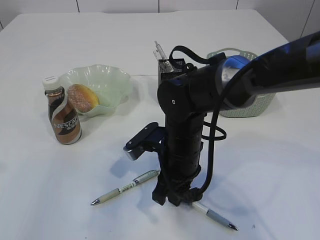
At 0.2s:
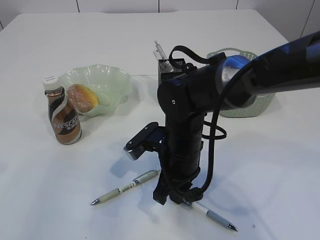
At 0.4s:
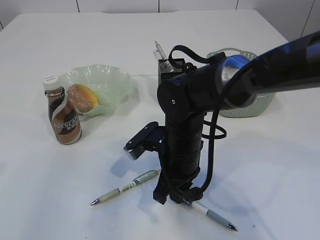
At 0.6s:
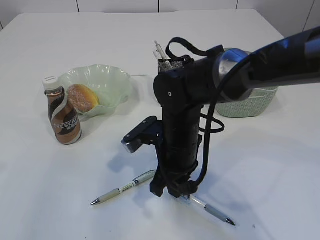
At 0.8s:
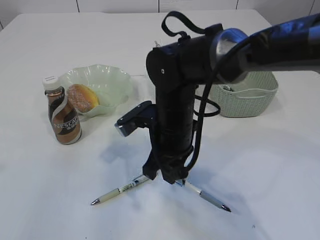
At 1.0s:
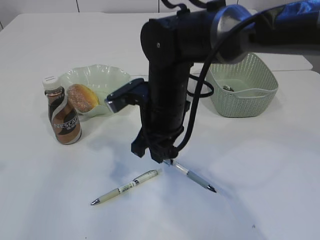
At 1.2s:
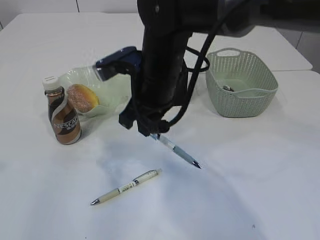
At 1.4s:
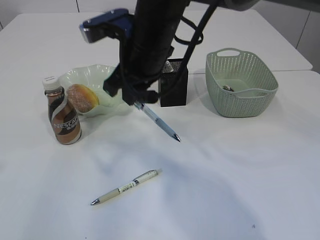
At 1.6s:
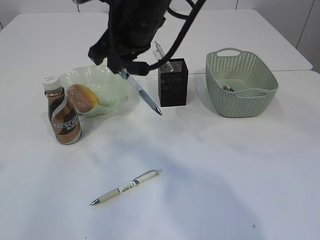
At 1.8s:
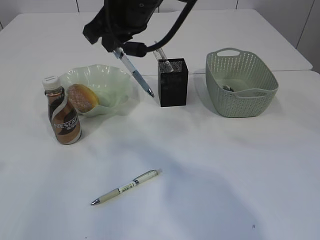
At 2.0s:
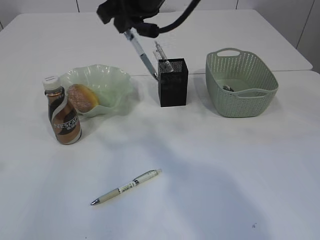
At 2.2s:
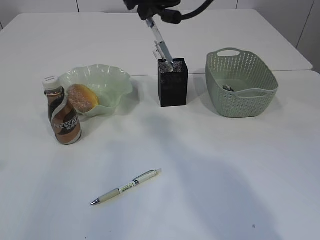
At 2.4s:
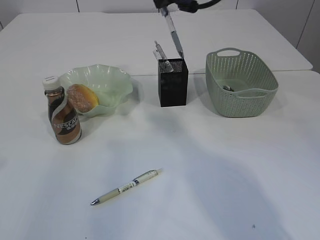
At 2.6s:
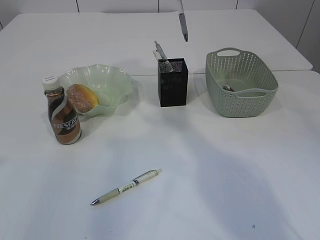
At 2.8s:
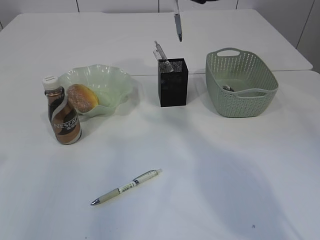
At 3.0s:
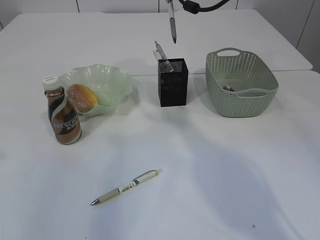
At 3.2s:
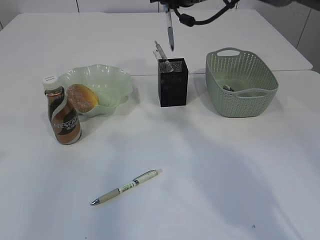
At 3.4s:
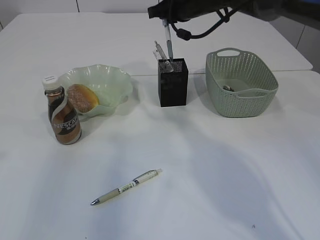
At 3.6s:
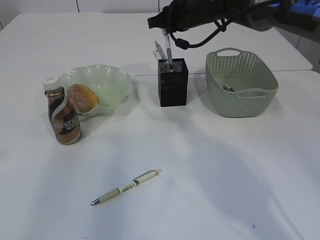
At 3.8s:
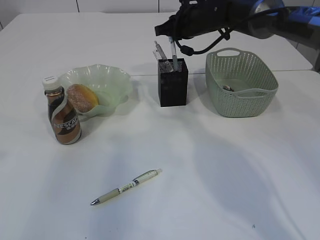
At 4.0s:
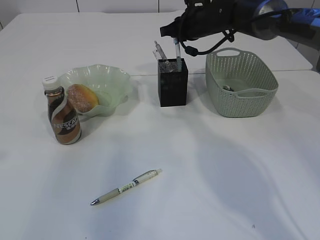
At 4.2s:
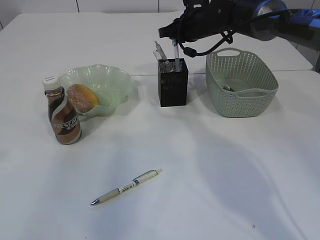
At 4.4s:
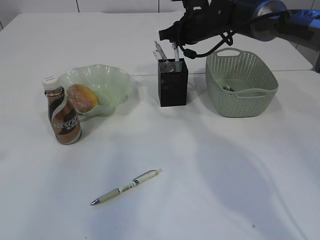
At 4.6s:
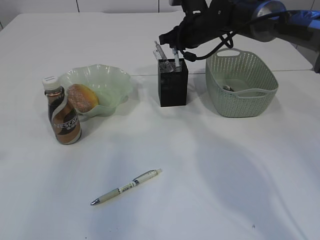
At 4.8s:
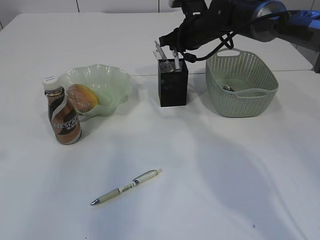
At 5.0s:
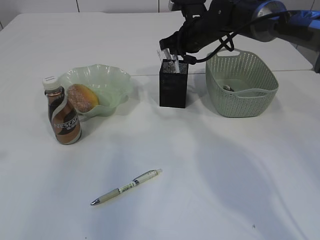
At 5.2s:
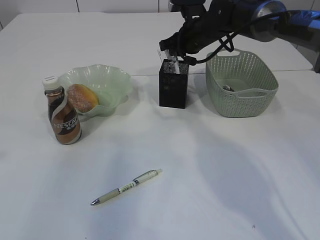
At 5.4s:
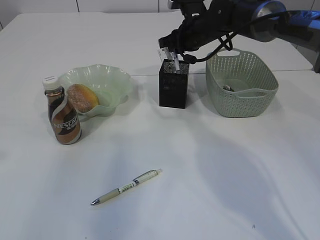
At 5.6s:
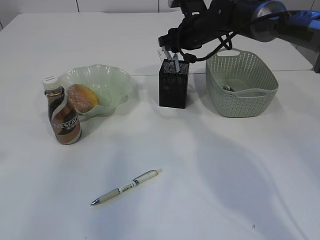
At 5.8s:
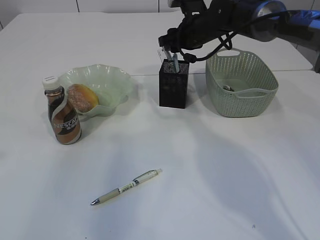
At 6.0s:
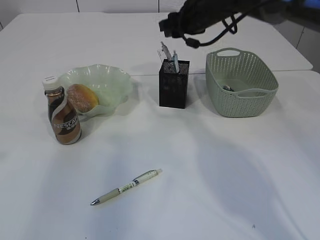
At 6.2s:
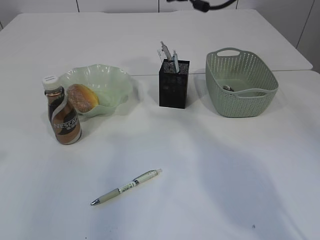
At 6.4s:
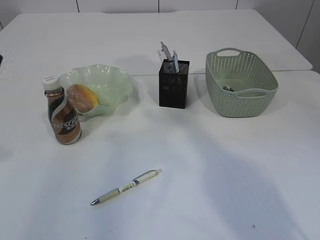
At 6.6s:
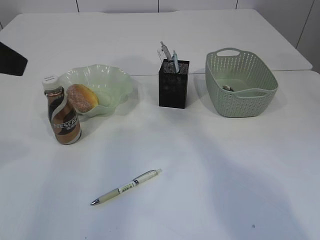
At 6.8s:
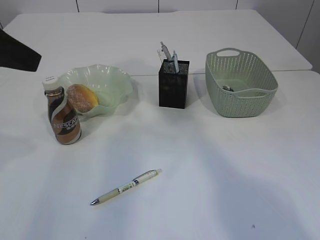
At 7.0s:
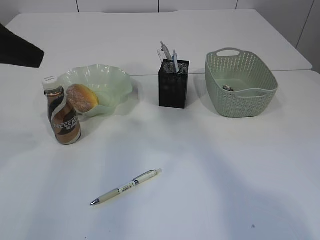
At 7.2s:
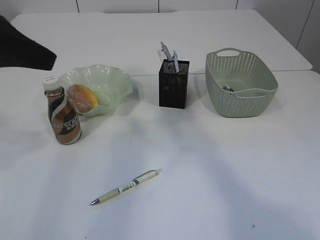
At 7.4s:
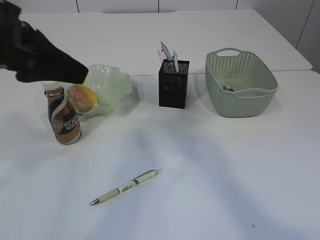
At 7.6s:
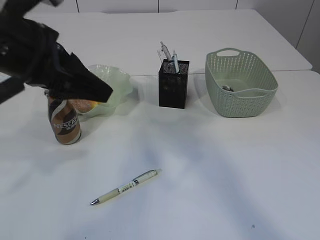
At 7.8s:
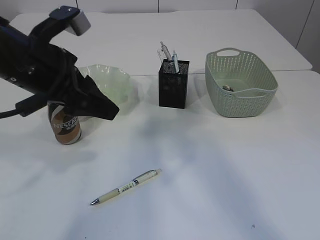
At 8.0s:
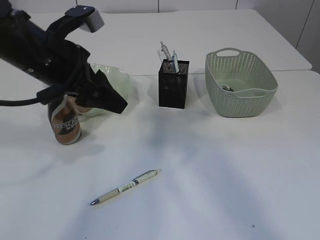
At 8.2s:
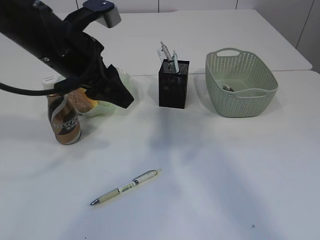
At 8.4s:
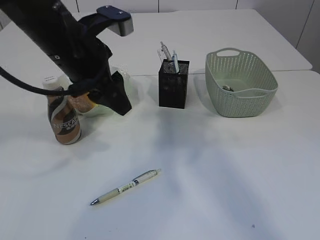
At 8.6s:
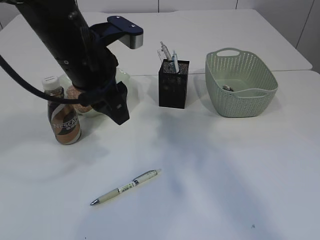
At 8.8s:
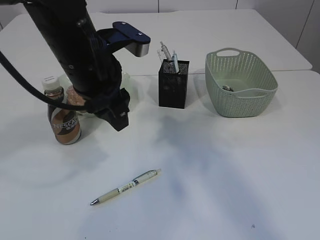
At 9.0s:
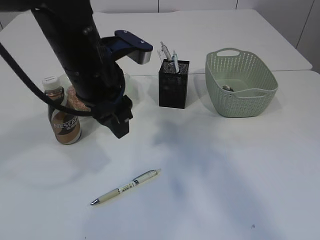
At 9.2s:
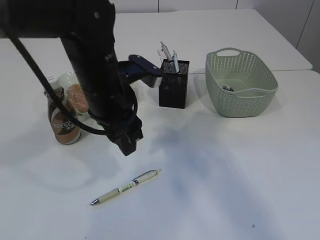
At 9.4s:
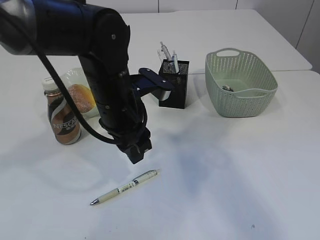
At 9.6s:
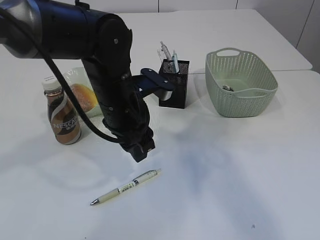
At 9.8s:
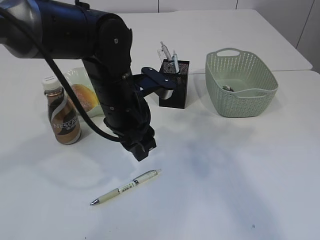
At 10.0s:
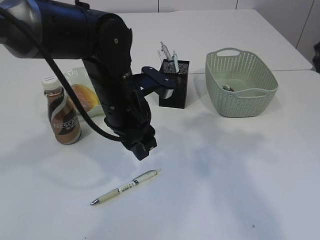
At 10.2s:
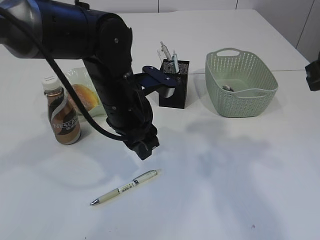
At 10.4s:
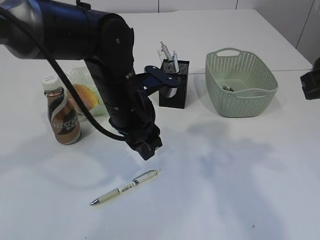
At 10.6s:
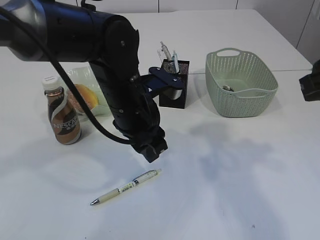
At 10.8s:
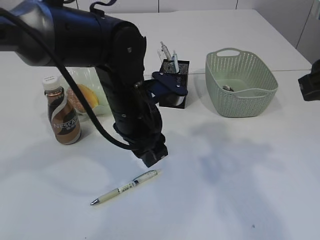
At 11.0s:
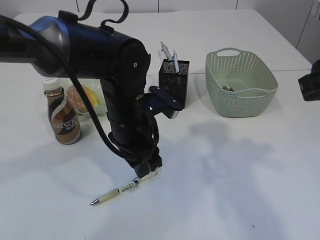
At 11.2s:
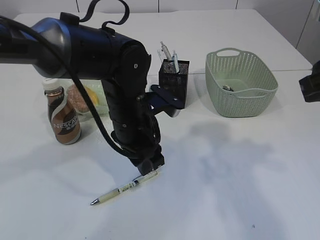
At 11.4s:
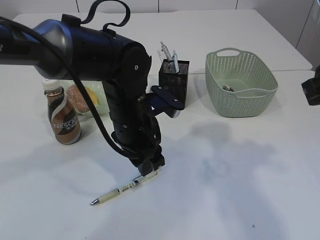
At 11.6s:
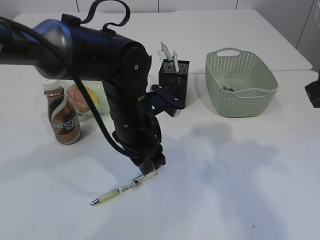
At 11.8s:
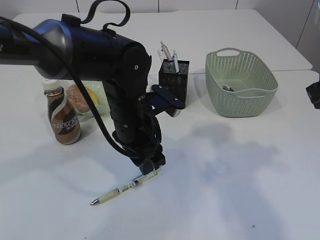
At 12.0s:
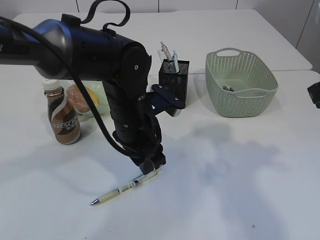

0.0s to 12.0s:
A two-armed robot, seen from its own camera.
Step, 1.2s to 5.8s: Place the pen into the pen holder.
0.0s to 1.6s: The right gripper goes some 20 cm upward.
1.6s to 3.0s: The right gripper shifts about 15 cm forward and to the right.
3.0s to 4.4s: The right gripper moves downward, about 10 cm.
4.4s to 6.0s: The right gripper opens up.
6.0s to 7.6s: The left gripper moves to the right, downward and forward, about 15 cm, while the right gripper goes approximately 40 cm upward and backward.
7.6s to 9.0s: The right gripper ends up about 5 cm from where it was. The left gripper travels to the right by approximately 10 cm.
9.0s to 10.4s: The left gripper heads downward, covering approximately 5 cm, while the right gripper travels downward by roughly 15 cm.
10.4s to 12.0s: The grippers make only small movements.

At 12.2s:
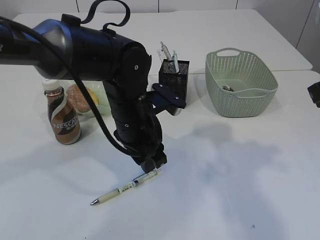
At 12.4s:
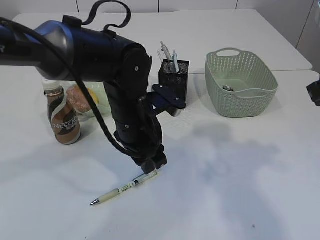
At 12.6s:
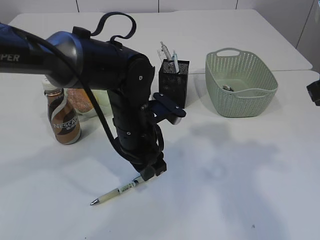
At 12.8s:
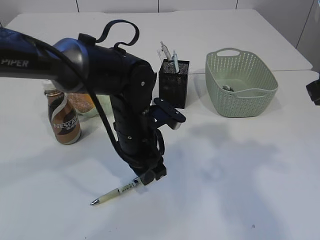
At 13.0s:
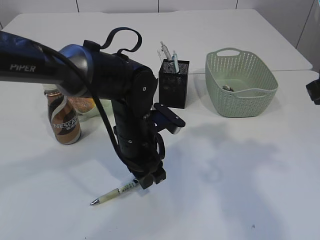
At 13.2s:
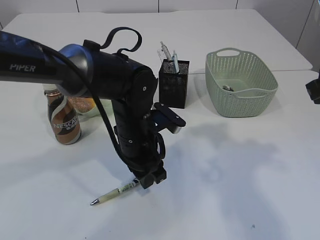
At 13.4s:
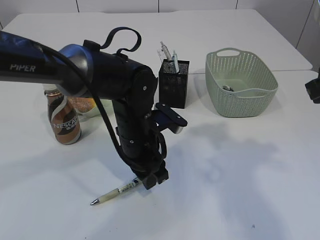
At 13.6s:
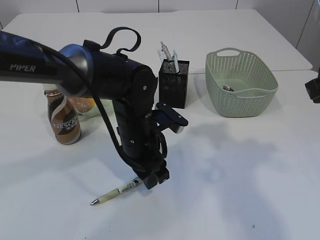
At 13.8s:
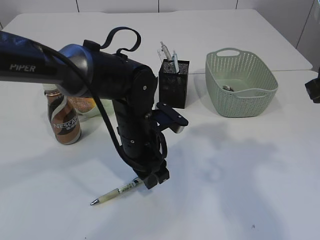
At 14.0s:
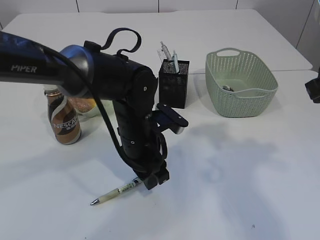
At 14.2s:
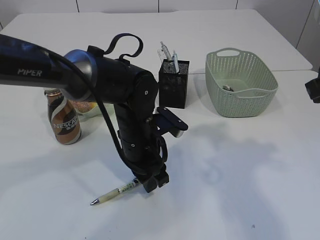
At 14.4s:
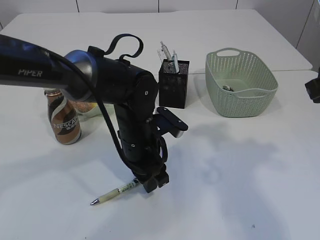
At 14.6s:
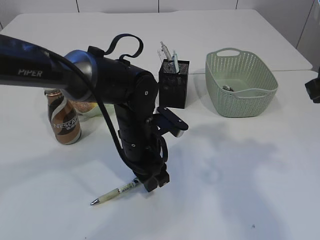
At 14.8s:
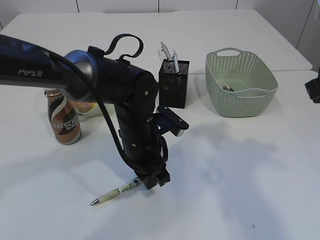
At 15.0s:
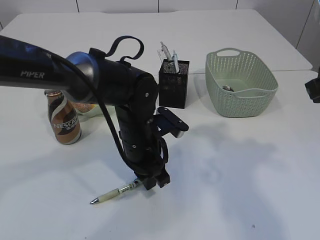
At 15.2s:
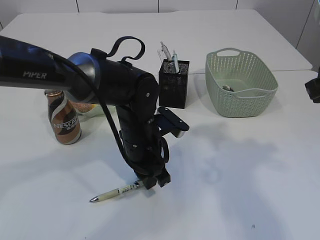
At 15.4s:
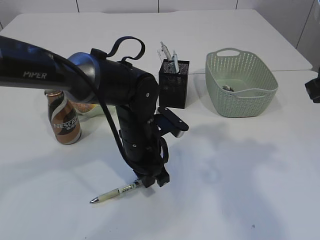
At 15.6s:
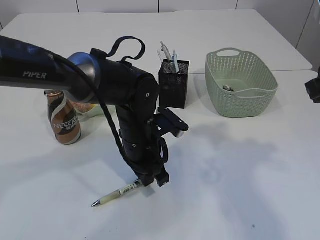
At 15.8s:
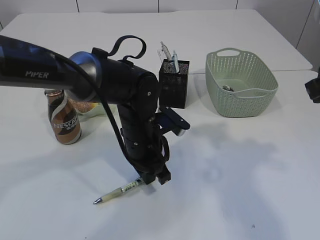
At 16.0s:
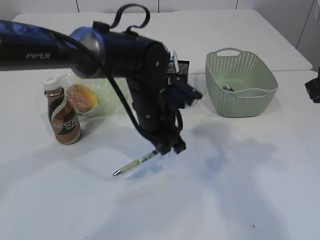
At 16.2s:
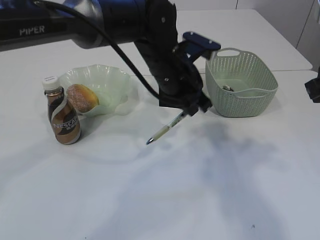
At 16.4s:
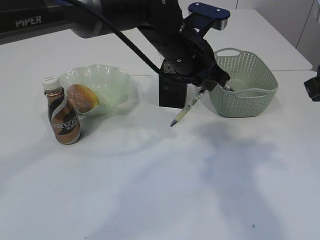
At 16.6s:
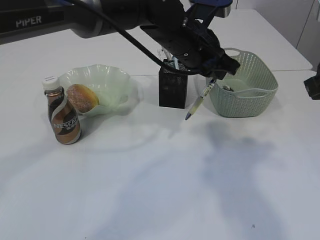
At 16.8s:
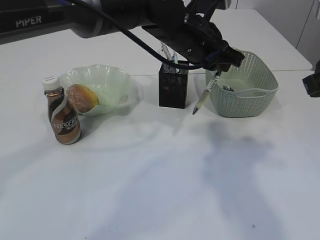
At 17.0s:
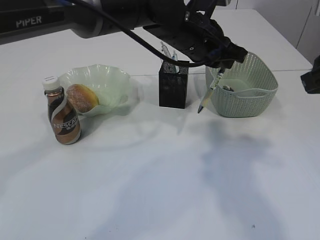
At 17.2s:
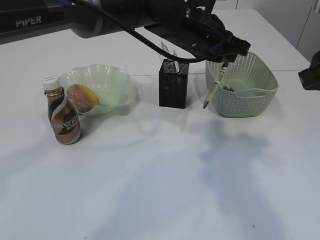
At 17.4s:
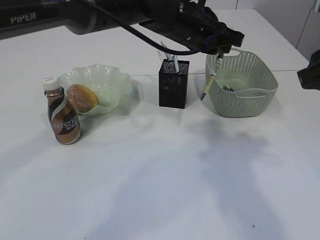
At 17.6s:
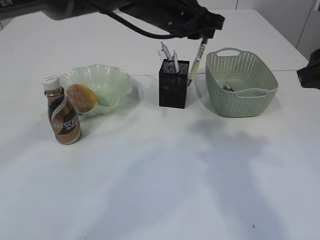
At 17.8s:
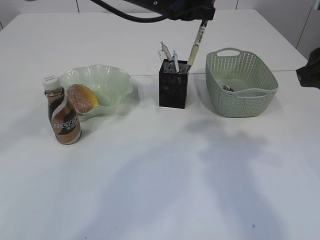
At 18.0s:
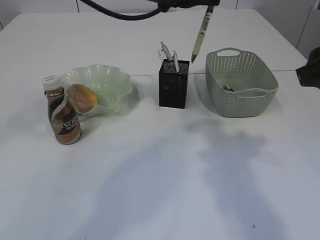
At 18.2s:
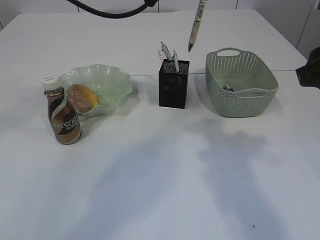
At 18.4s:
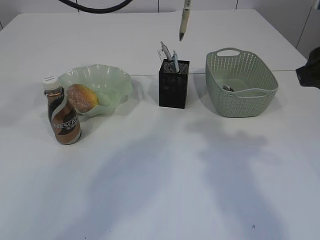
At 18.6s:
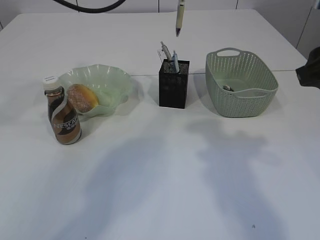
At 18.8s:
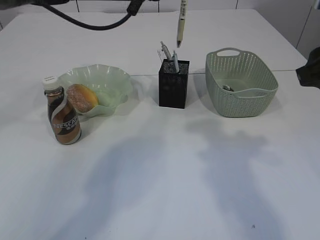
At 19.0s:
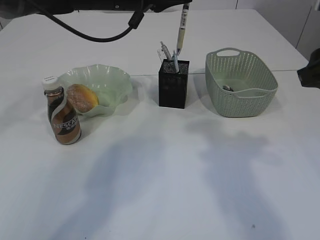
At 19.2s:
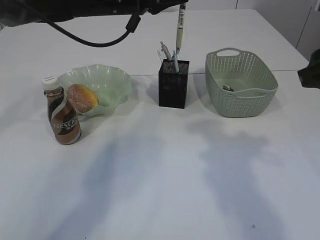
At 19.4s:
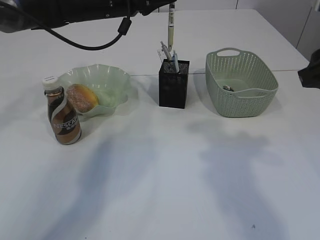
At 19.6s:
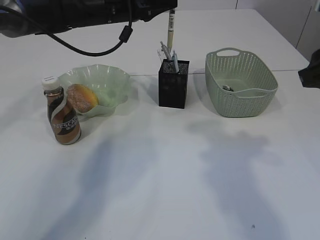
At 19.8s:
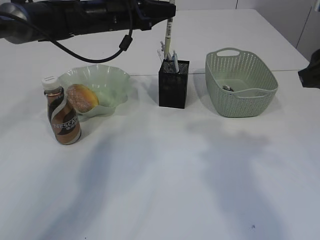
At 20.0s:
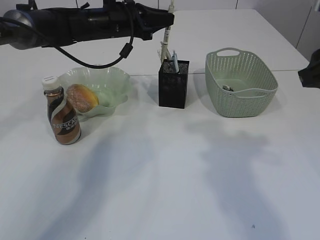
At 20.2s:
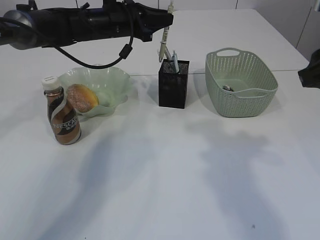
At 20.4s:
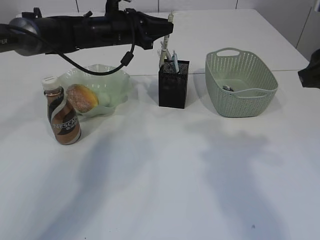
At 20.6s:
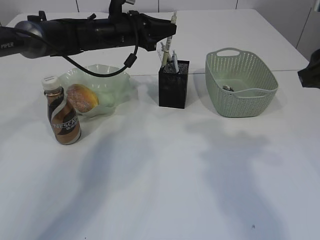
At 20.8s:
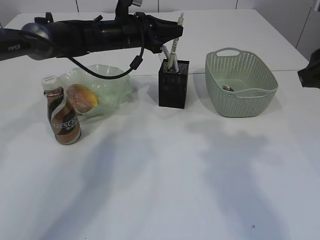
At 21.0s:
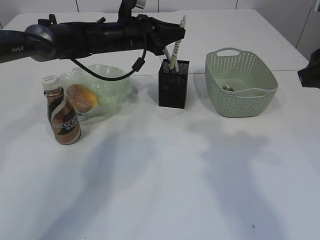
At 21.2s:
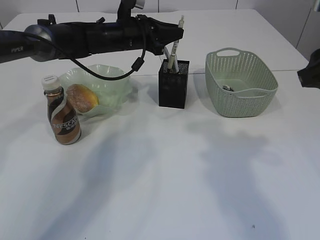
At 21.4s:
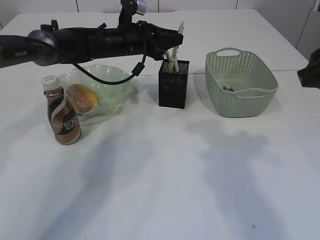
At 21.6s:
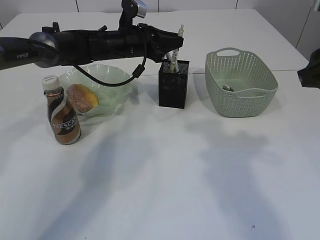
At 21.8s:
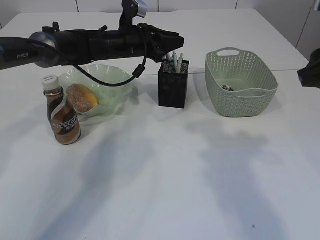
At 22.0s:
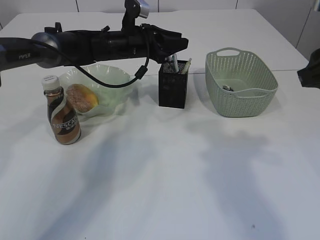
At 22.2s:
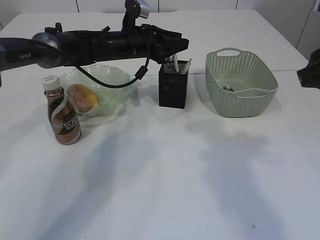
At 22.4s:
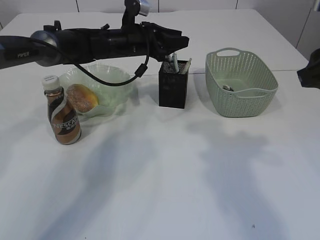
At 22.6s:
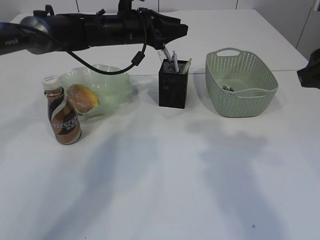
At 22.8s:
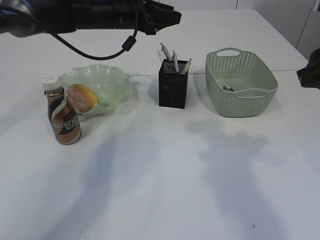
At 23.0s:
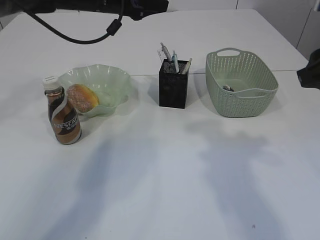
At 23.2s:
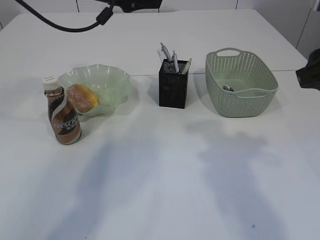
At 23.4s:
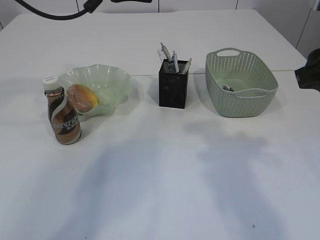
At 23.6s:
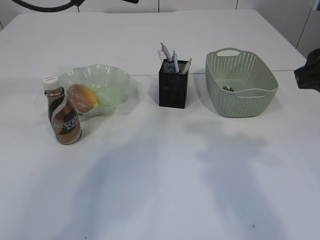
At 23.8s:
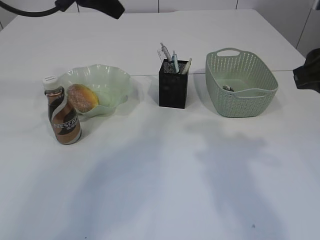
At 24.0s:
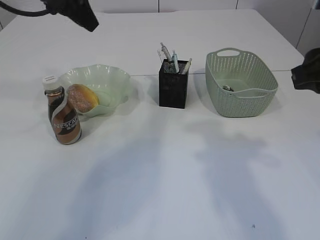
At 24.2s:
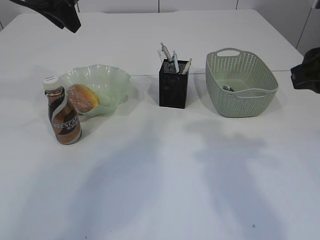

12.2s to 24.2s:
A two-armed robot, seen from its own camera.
Step, 12.2s to 17.6s: Pick up the pen with left arm.
Step, 17.8s to 22.4s: Place the pen into the pen holder.
12.2s to 15.2s: The grippers stay close to where they were, moving slightly.
15.2s to 16.6s: The left gripper heads upward, to the right and forward, covering about 15 cm, and closes up.
16.6s to 18.2s: The left gripper is displaced to the left and upward by roughly 15 cm.
18.2s to 19.8s: The left gripper is displaced downward, forward and to the left by about 15 cm.
19.8s to 21.2s: The left gripper ends up approximately 5 cm from where it was.
21.2s to 22.6s: The left gripper opens.
22.6s to 24.2s: The left gripper shifts some 20 cm upward, to the left and backward.
